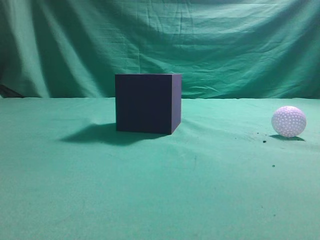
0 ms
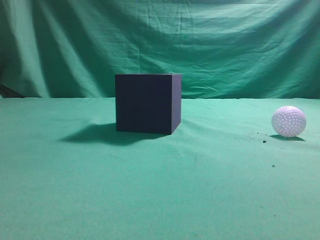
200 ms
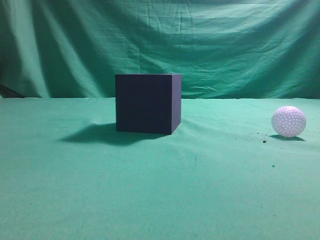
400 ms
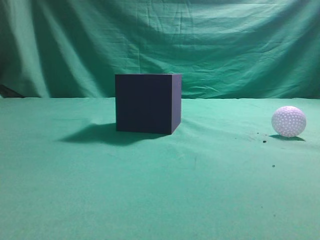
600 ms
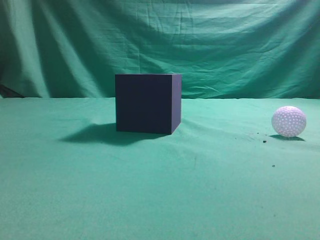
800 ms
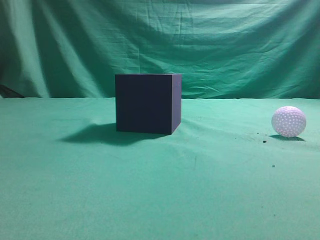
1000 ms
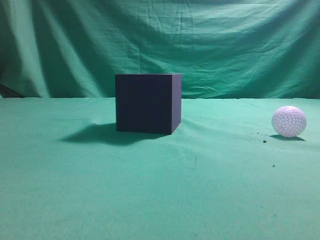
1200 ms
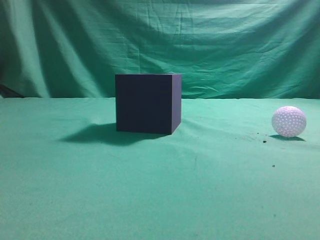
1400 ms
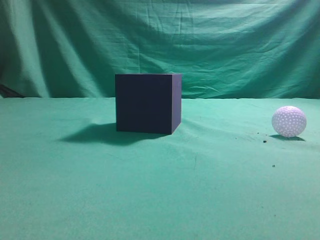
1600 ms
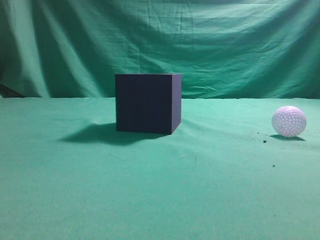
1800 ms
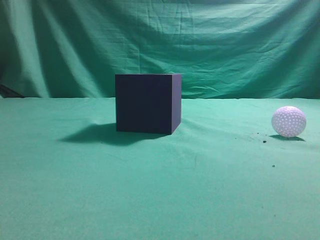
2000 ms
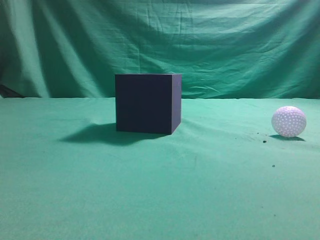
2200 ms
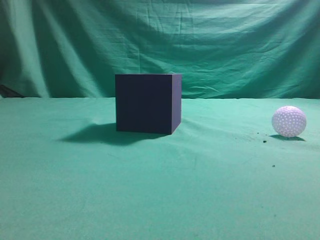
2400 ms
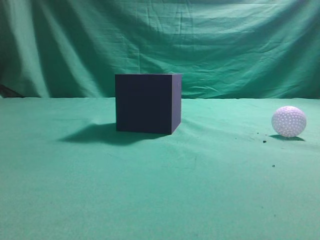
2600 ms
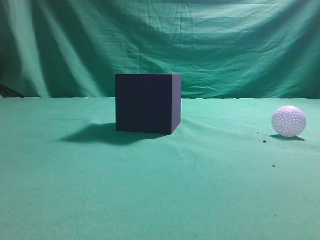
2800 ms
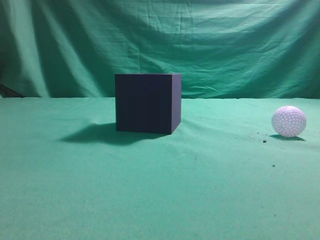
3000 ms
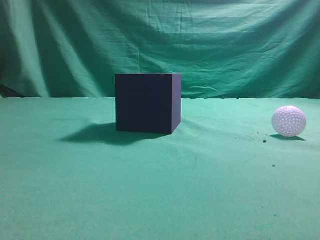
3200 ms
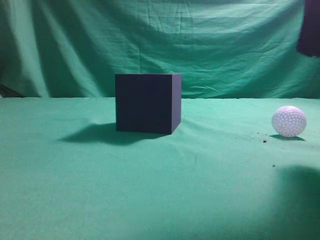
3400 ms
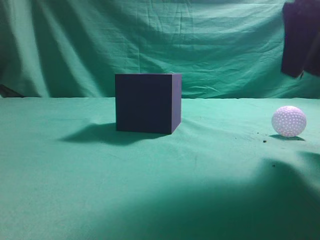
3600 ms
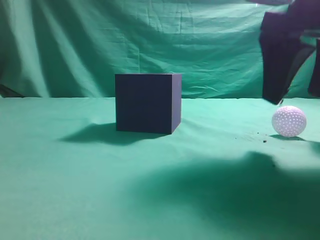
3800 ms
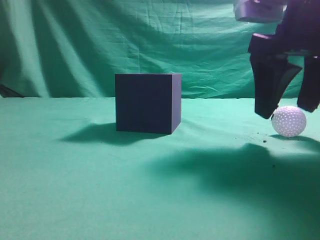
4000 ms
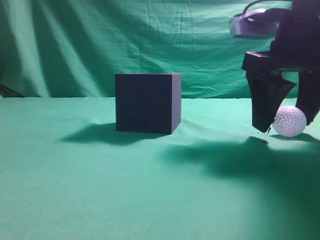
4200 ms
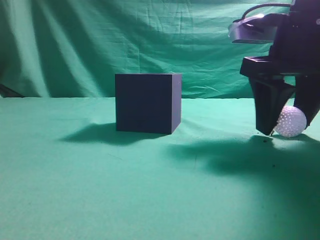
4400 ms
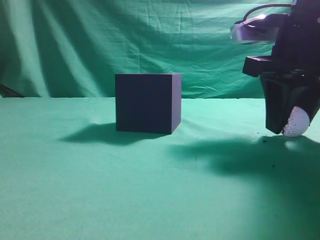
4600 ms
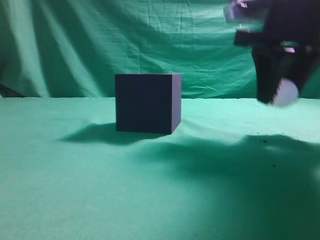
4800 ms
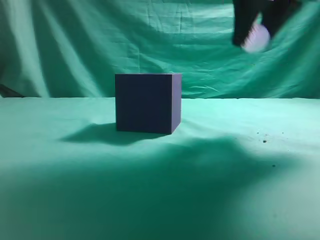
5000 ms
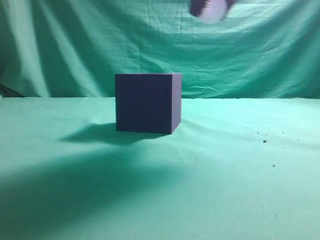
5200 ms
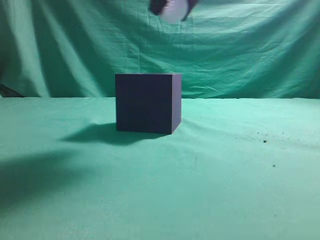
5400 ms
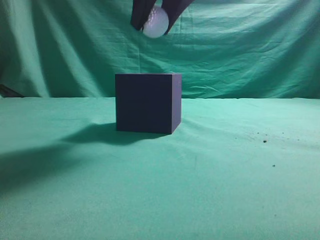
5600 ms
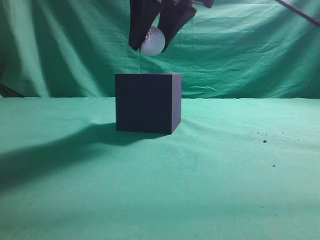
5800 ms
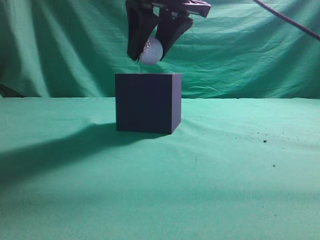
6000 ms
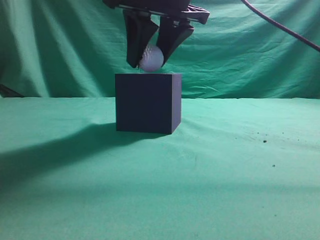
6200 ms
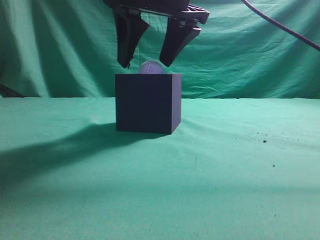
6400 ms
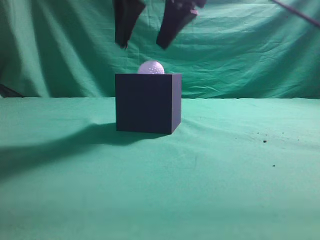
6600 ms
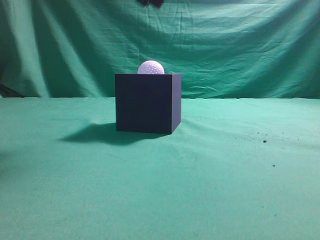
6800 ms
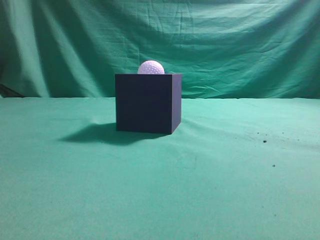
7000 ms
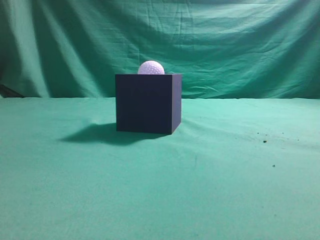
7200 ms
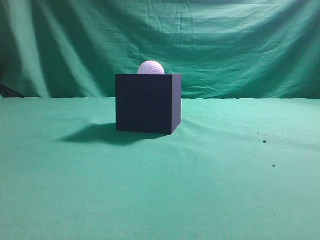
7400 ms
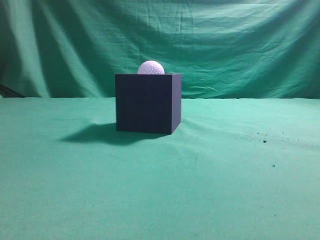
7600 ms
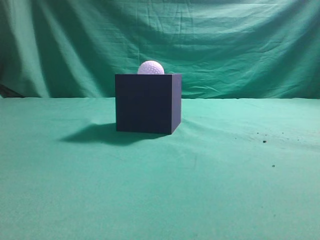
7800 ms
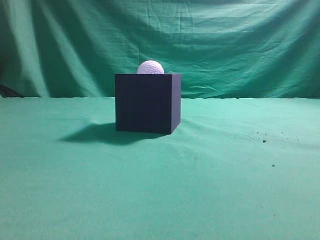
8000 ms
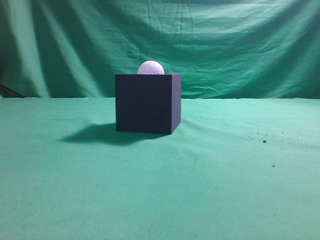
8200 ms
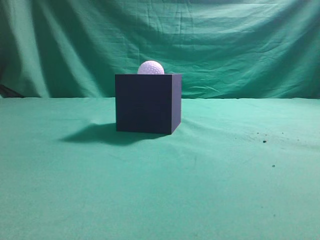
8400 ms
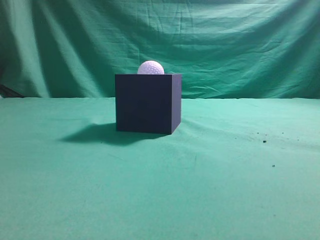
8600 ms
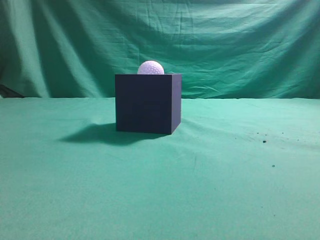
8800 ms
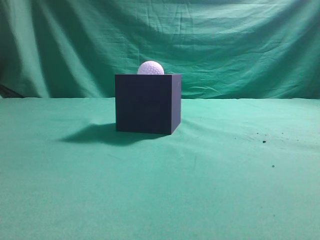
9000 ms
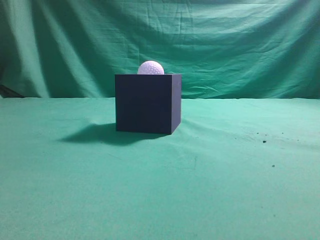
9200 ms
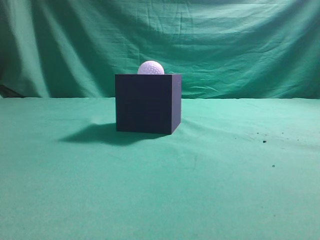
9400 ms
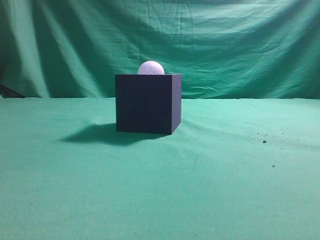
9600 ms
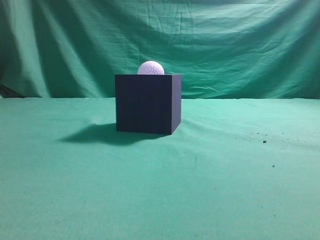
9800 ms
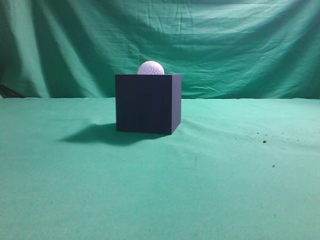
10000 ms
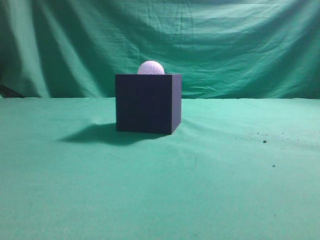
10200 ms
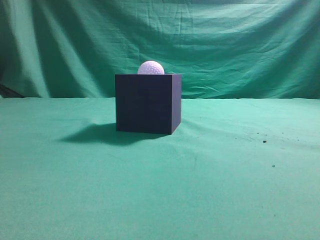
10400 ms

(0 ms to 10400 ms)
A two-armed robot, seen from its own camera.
Task of the whole recording: Pick up the ball and place it in the circular groove above the cube.
Step, 0 ms - 4600 ms: Grasp the sphere on the table.
Step, 4800 ms - 6400 ms: Place the sphere into the sphere-shaped recess.
3000 ms - 4400 ms: The right gripper shifts some 15 cm forward, downward and to the left, and opens its fingers.
4400 ms - 6000 ms: The right gripper heads to the left and upward, covering approximately 15 cm.
6000 ms - 7400 ms: The right gripper shifts some 25 cm upward, backward and to the right, and closes.

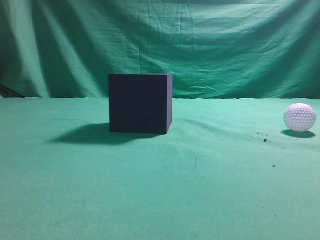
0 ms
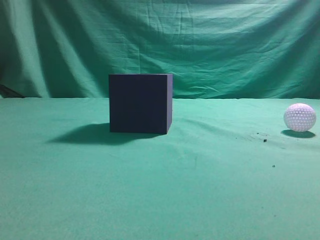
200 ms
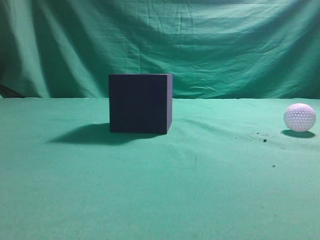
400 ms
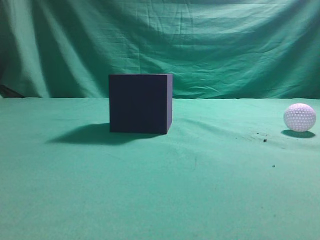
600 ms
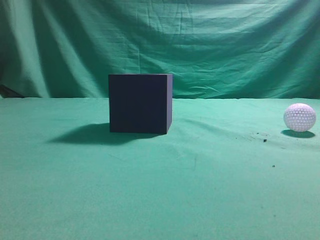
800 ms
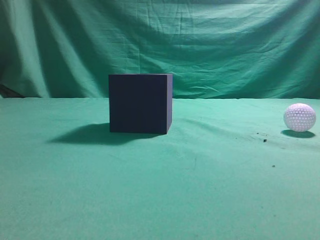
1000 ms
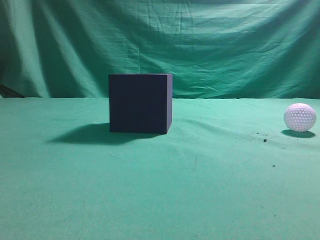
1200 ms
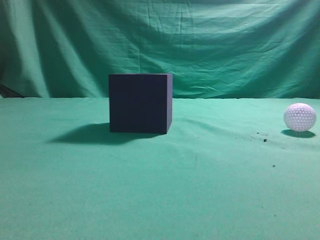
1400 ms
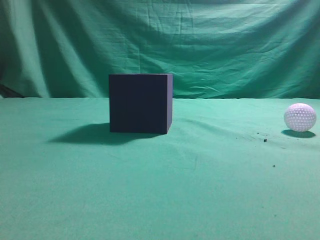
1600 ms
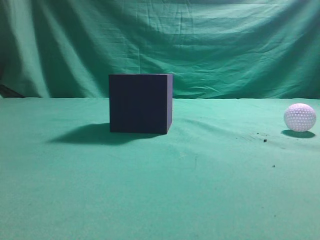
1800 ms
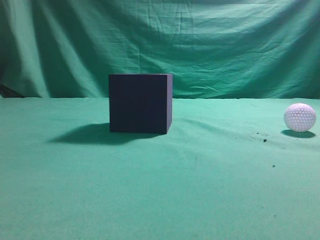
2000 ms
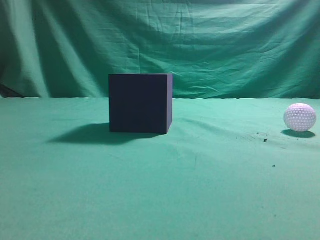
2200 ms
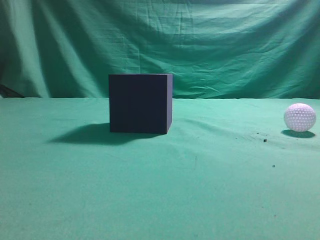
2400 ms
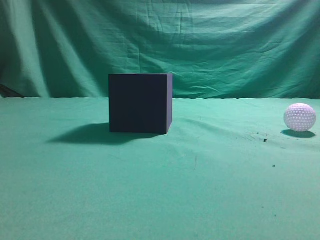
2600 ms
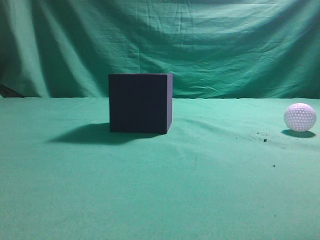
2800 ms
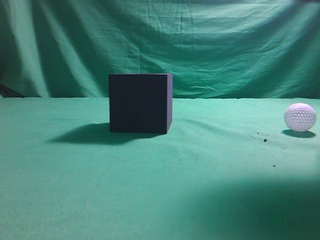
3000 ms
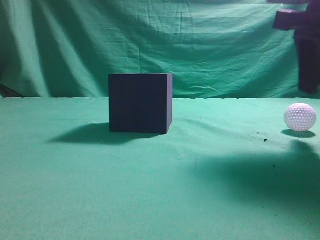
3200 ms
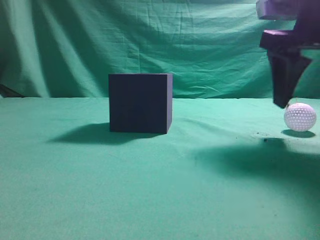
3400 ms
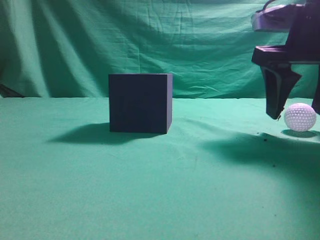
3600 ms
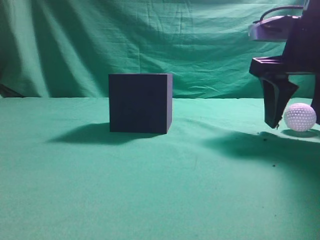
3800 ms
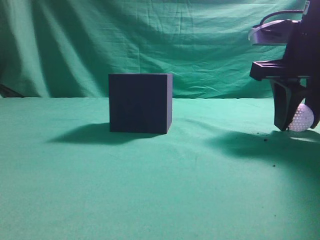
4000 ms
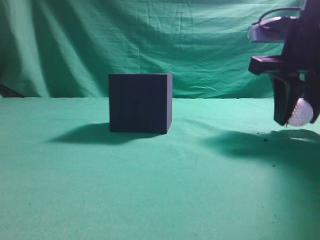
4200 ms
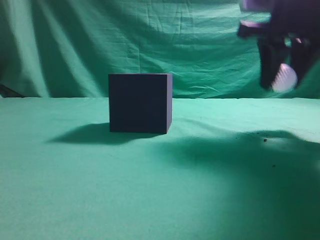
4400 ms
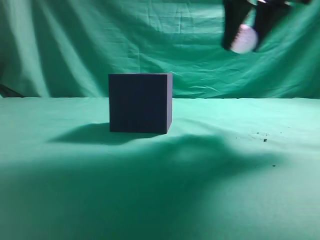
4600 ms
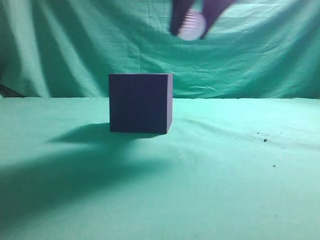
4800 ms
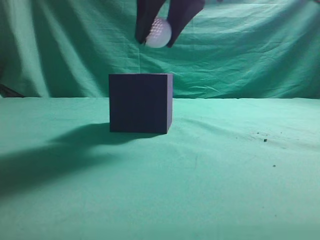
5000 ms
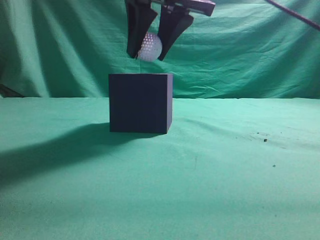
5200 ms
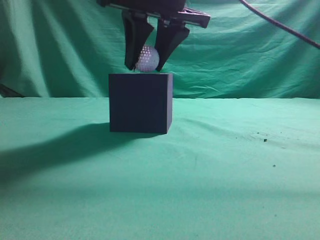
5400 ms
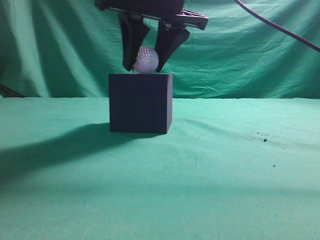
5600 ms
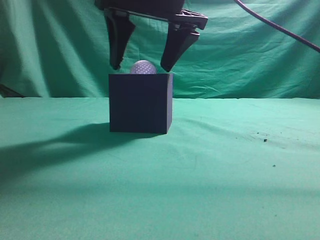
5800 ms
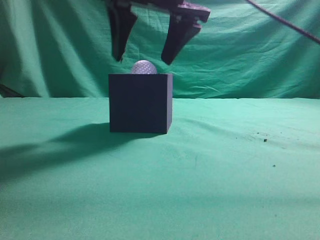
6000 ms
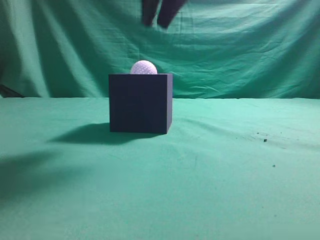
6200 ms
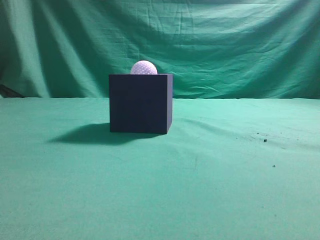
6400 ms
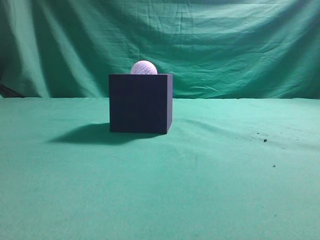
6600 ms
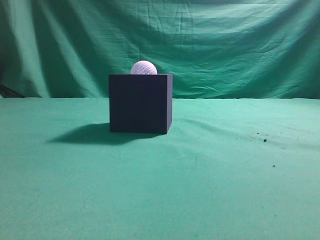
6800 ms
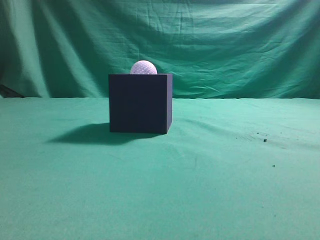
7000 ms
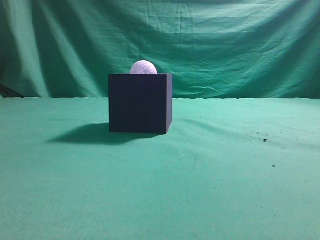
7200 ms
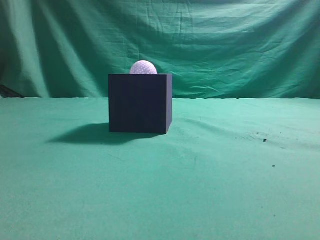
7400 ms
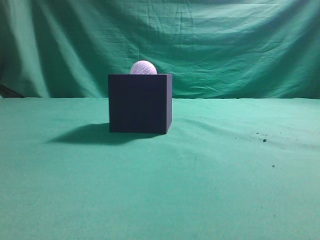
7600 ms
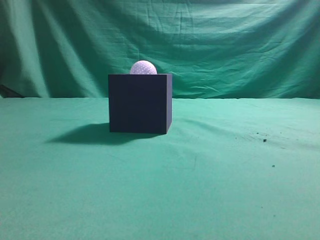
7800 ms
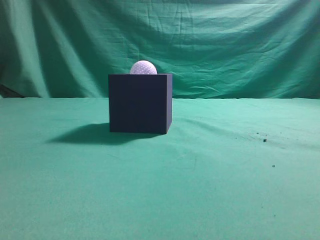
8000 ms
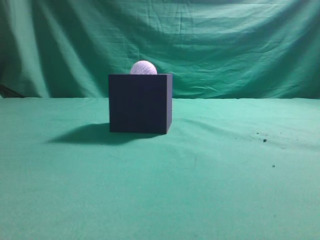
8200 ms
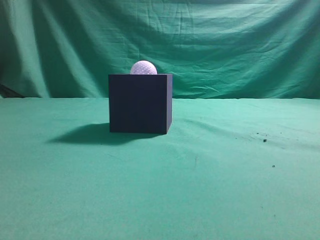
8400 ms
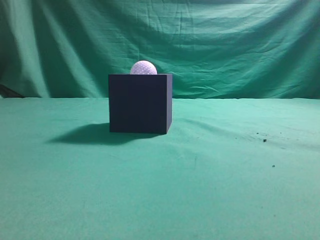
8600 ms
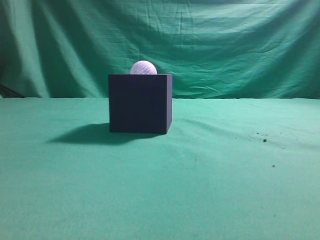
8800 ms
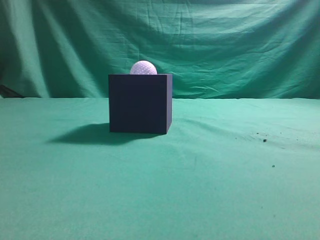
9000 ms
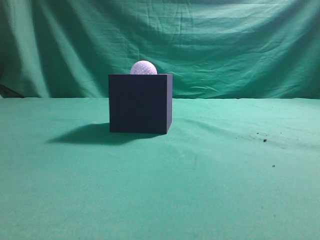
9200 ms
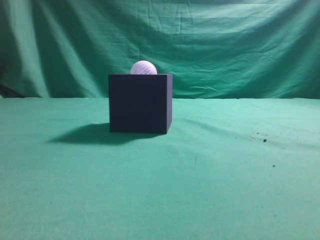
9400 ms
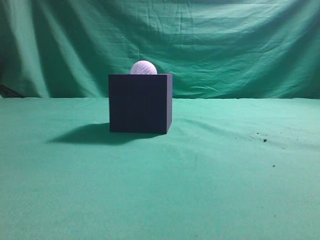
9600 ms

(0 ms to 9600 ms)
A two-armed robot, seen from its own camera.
Task of the whole recording: Pick up the ball and place it in the circular groove above the cube.
Step, 0 ms - 3400 ms: Grasp the sphere on the table.
Step, 3600 ms - 5000 ms: Place the sphere into the sphere-shaped recess.
1600 ms - 3200 ms: The right gripper travels forward by some 25 cm, and opens.
3200 ms - 4800 ms: The right gripper is displaced to the left and upward by about 15 cm, and opens, then closes again.
4800 ms - 6400 ms: The right gripper shifts some 5 cm upward, and closes.
